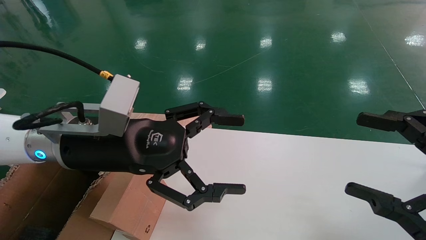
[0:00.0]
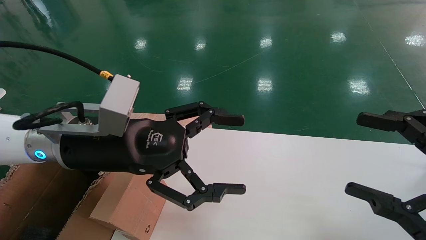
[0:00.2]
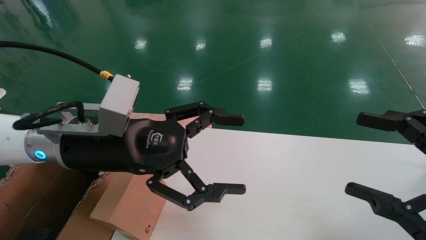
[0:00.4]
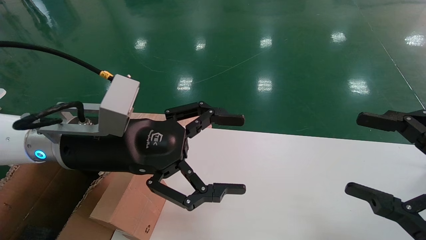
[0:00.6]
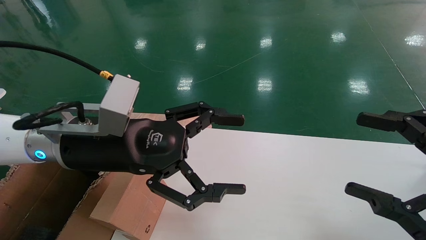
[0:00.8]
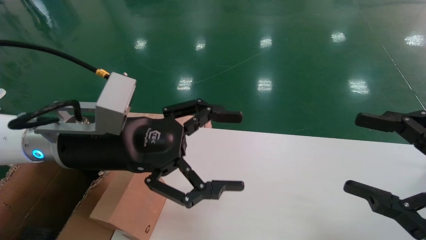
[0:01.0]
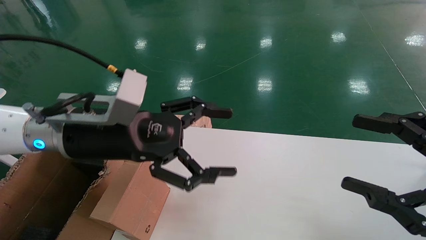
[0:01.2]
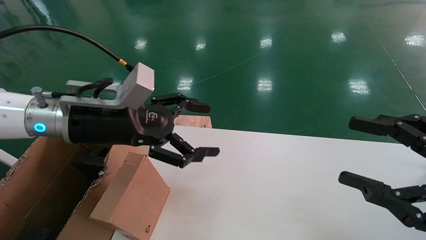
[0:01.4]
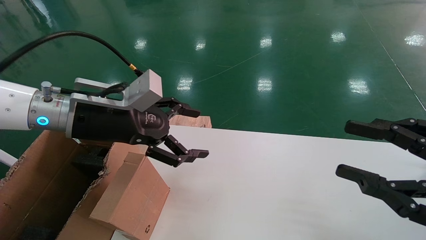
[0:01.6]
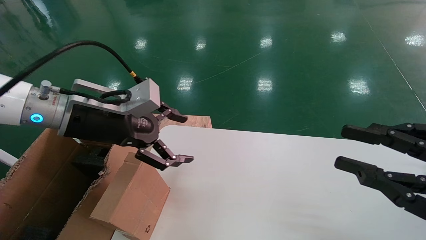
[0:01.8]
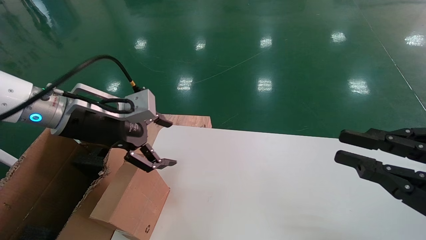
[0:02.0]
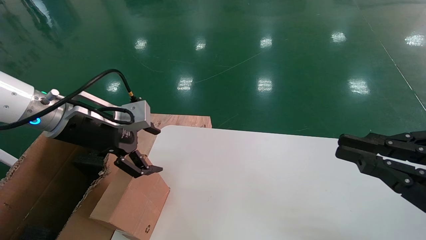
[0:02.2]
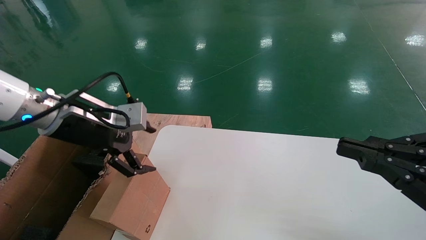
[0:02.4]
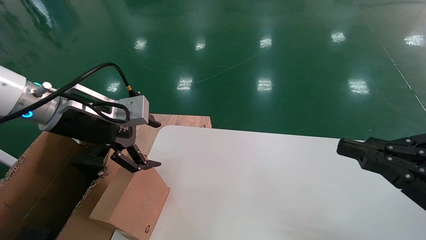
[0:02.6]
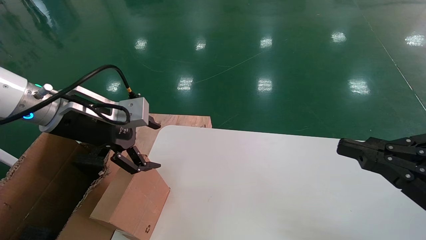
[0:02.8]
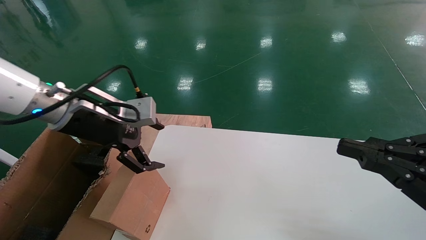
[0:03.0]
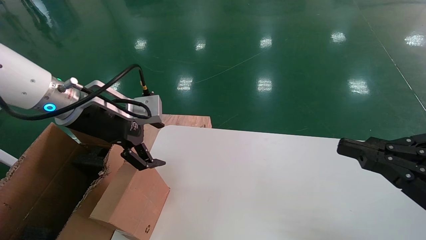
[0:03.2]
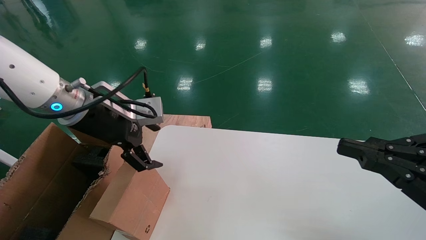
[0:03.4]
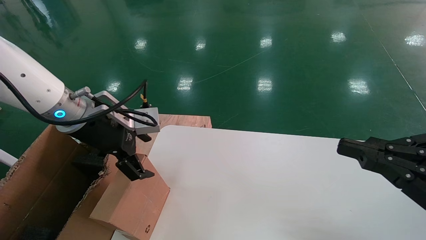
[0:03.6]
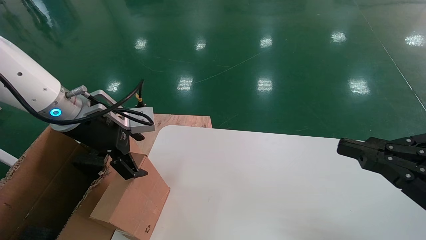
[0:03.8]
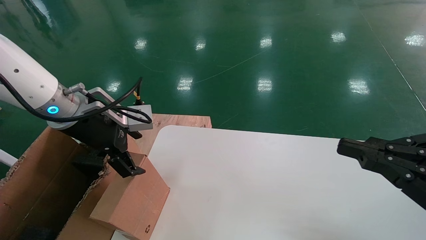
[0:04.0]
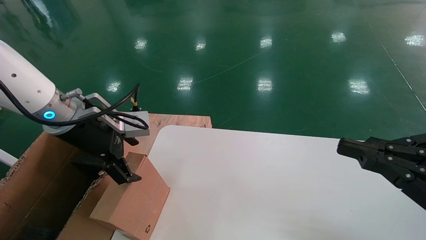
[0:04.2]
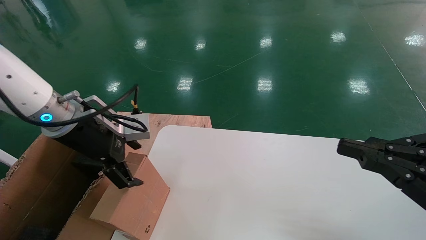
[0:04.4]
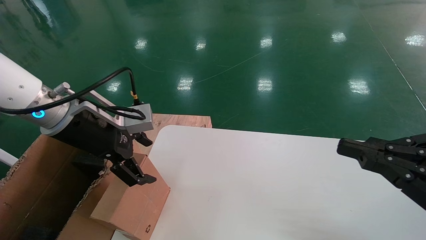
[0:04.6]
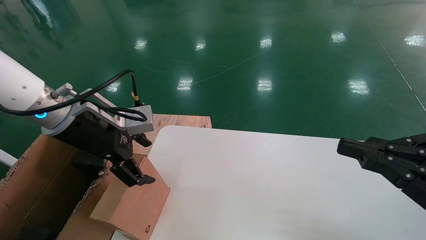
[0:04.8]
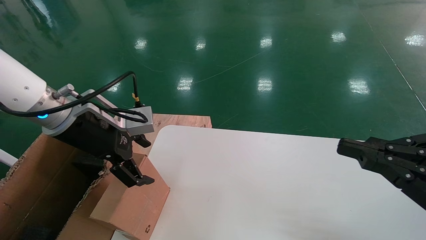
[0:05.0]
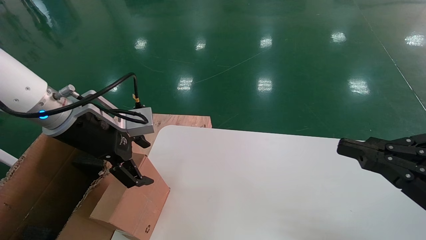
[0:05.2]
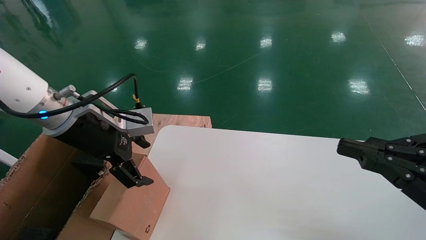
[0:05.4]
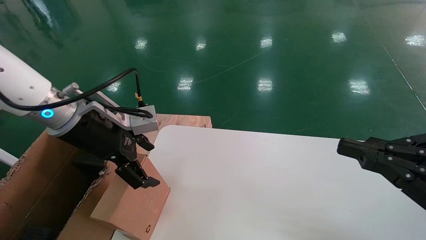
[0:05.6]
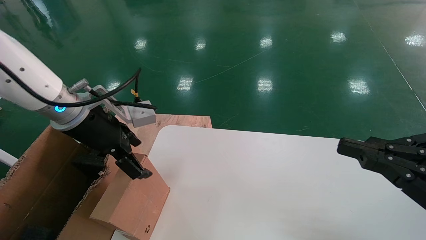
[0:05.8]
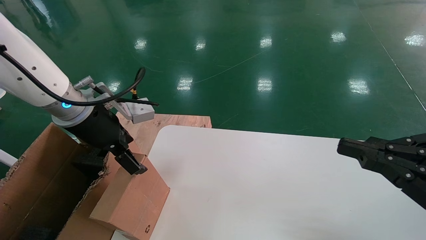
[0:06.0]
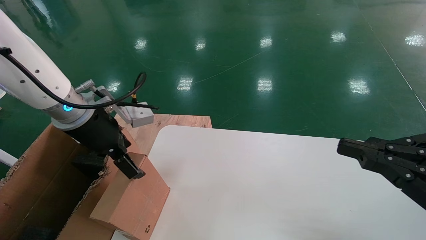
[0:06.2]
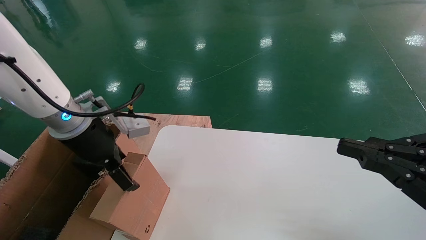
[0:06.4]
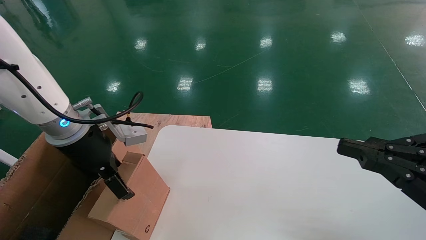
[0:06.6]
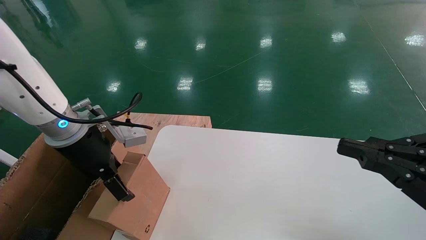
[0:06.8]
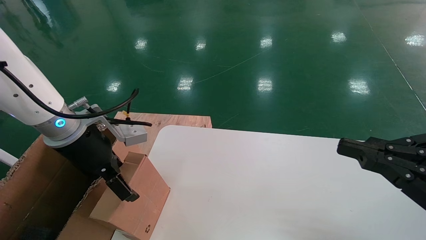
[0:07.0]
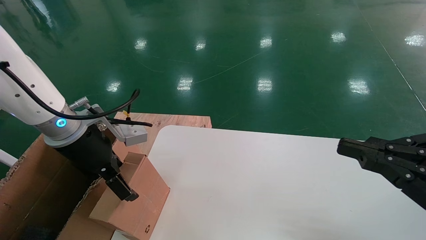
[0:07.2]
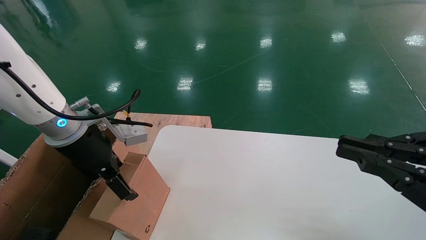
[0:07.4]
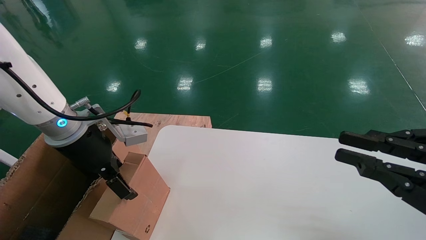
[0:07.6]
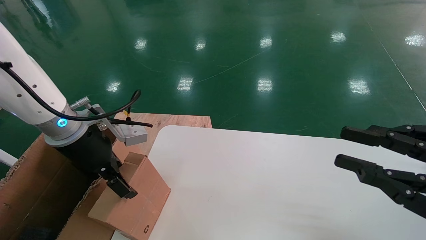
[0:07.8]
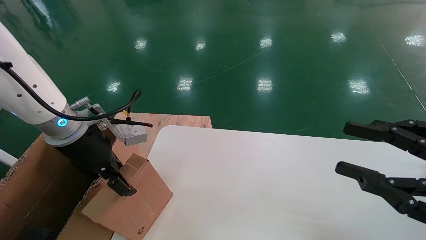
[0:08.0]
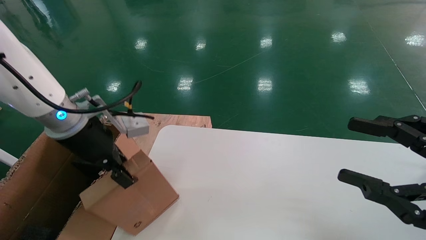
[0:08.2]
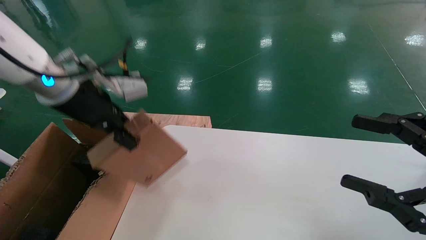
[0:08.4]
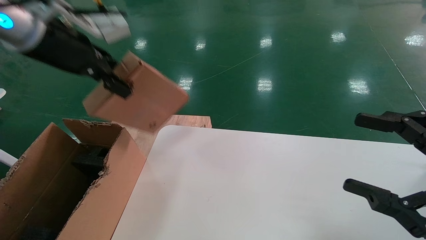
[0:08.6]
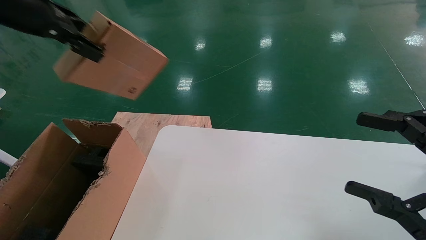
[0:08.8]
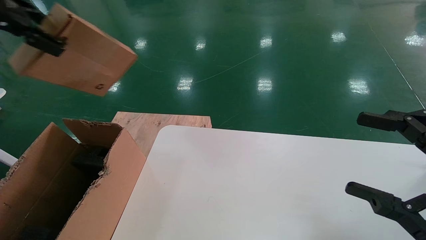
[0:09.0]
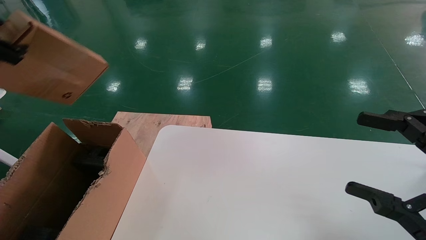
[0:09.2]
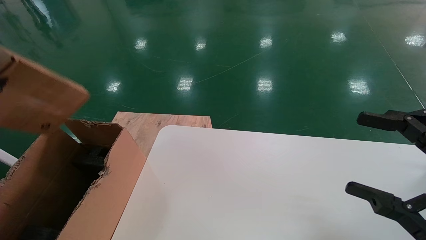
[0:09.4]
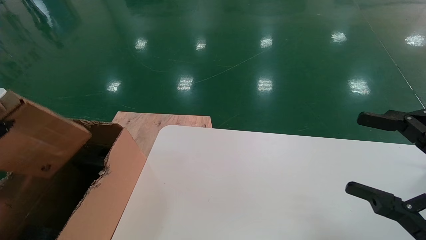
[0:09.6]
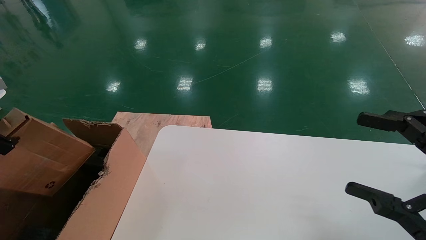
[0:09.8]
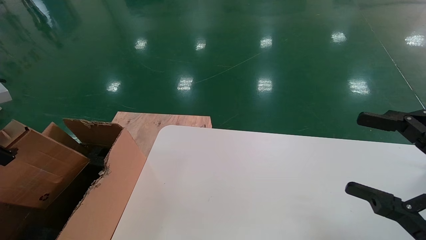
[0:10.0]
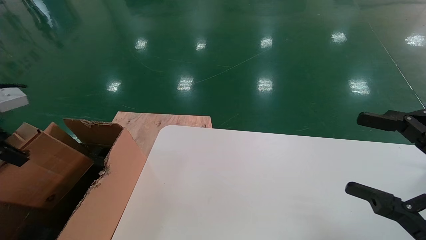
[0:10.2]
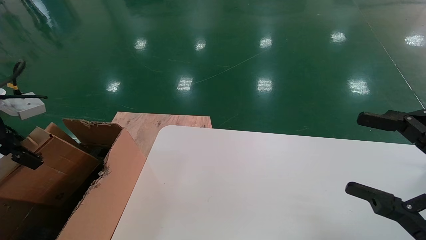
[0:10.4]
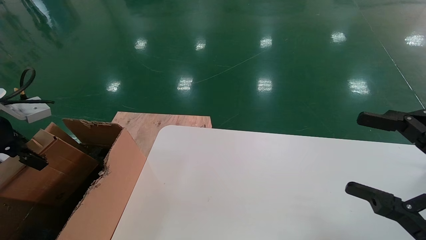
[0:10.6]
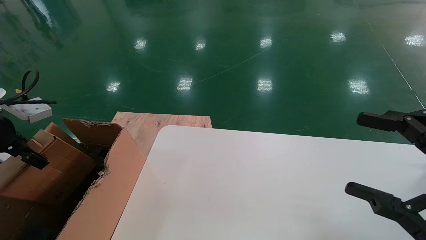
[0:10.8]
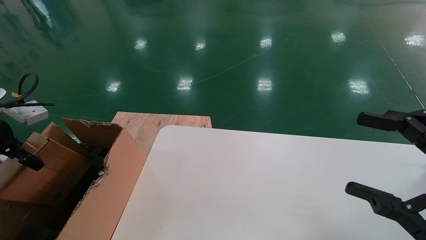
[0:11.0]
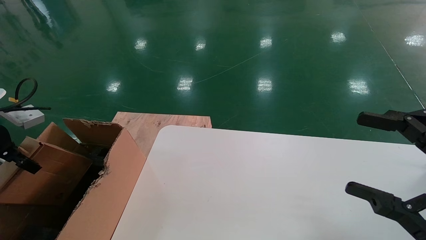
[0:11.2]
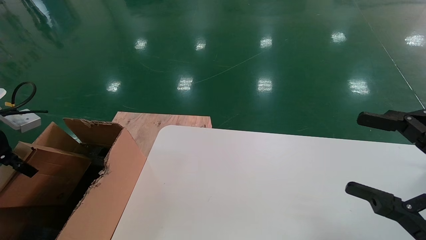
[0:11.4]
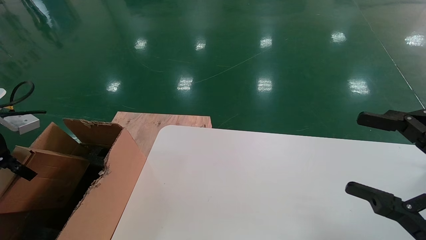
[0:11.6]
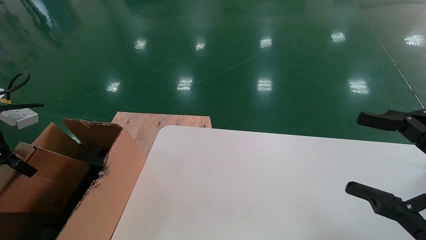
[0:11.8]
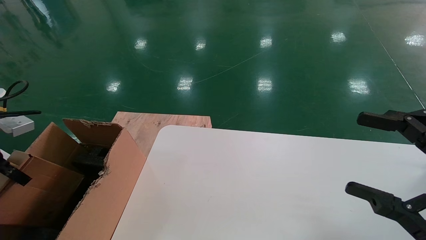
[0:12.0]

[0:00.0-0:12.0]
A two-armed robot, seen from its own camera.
Task of the whole recording: place the small box on the table into the large box on the left.
Step, 0:01.4 to 0:08.4: Pick up the mouse and the power cord paper box.
0:00.0 to 0:01.6: The left gripper moves approximately 5 cm.
0:01.6 to 0:03.0: The right gripper closes up.
0:03.0 to 0:04.4: The grippers move only a little.
0:04.4 to 0:06.0: The grippers stay close to where they were, moving slightly.
0:06.0 to 0:07.6: The grippers move only a little.
0:07.6 to 0:09.0: The left gripper is displaced upward and to the left by some 25 cm, and closes; the right gripper opens.
0:09.0 to 0:10.4: The left gripper goes approximately 20 cm downward.
0:10.4 to 0:12.0: The left gripper heads to the left and downward, covering roughly 5 cm.

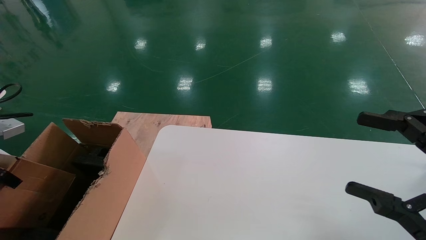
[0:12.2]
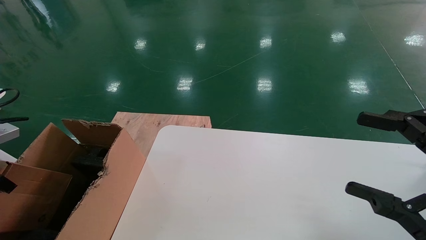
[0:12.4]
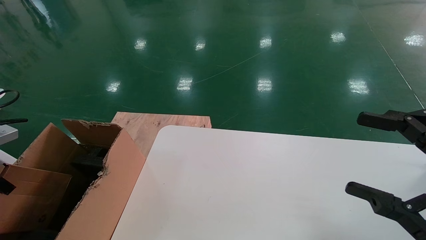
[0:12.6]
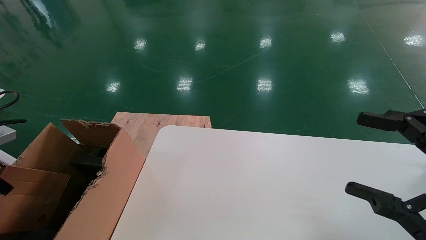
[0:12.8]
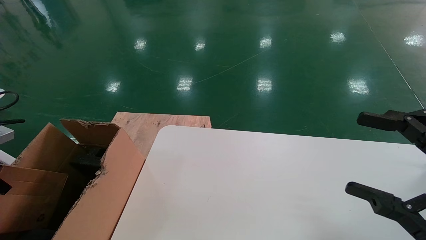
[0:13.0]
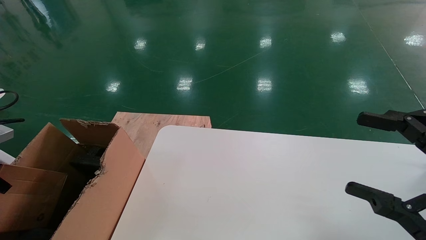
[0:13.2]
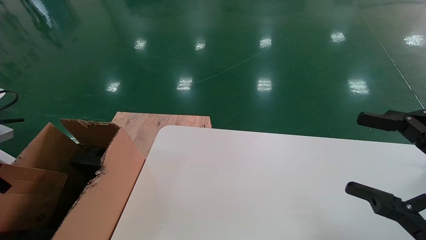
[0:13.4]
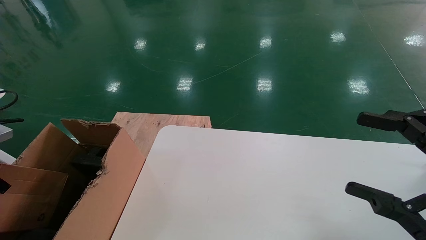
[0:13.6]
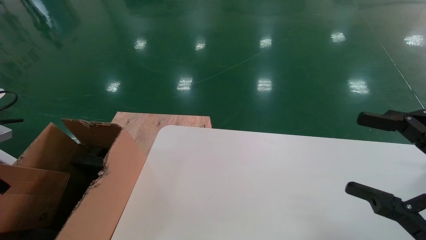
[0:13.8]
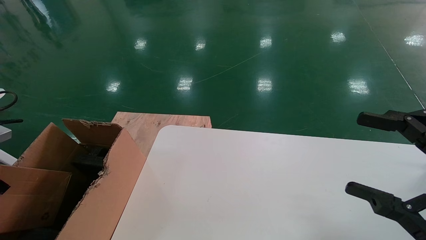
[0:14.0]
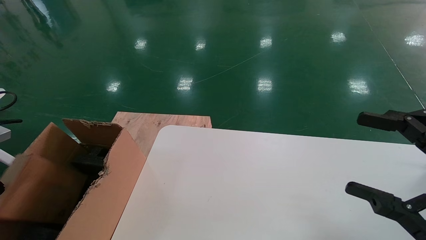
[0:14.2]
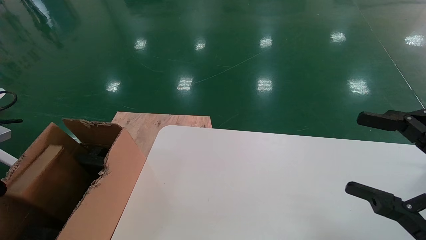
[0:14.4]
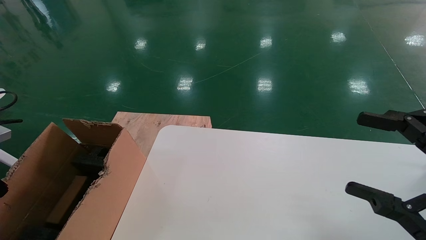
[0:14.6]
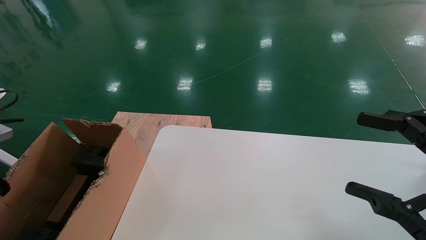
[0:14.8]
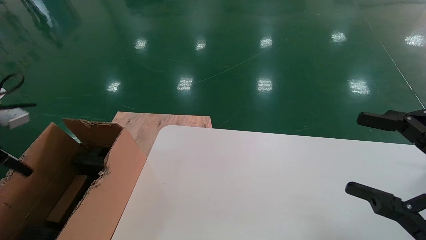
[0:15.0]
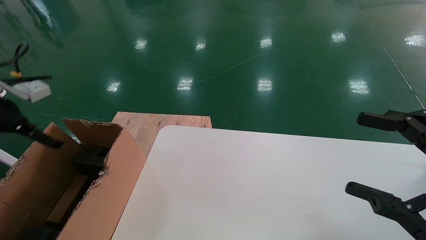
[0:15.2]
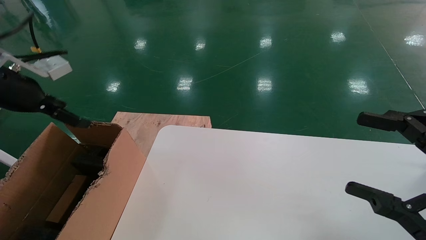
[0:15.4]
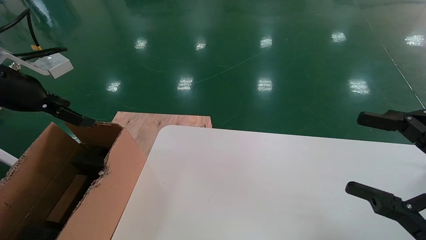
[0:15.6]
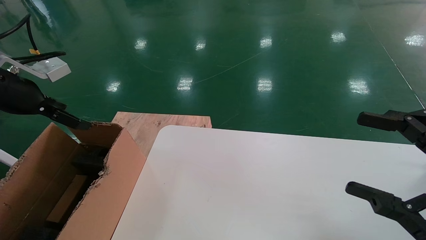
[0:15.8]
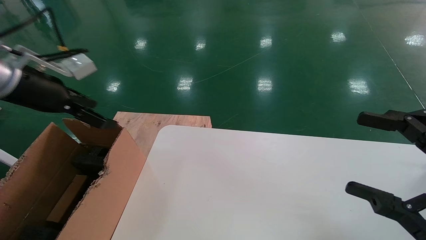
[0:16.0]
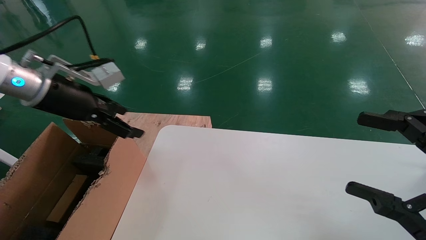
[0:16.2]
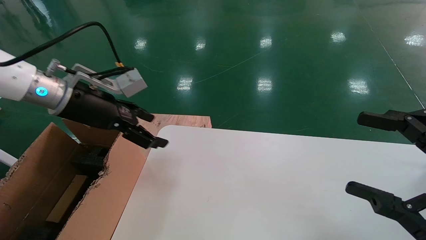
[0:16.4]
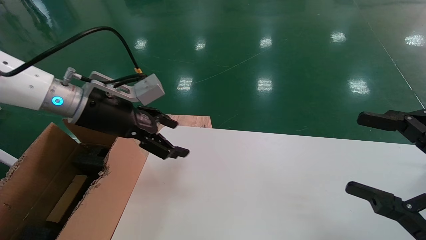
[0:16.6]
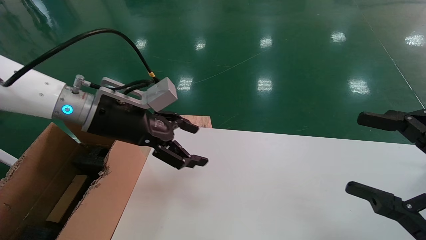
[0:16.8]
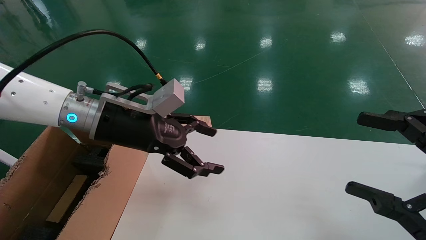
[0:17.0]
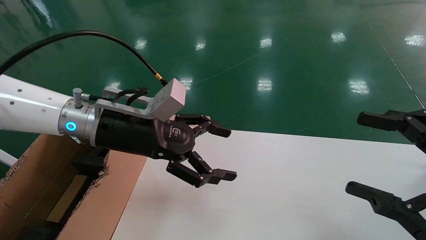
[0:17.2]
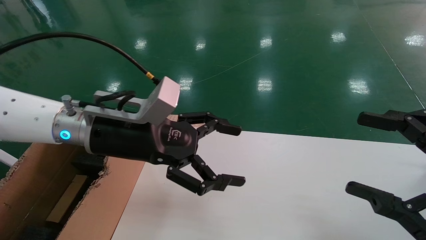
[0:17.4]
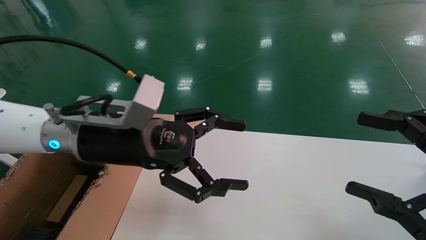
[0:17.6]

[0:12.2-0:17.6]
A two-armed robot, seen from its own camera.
Task of the whole recording: place the small box on the table into the large box on the left.
Step, 0:12.2 to 0:15.2: Place the mouse and the power cord paper box into the container.
0:12.2 to 0:13.6: The grippers stay close to where they were, moving slightly.
0:13.6 to 0:15.0: The left gripper changes place by approximately 5 cm, and opens up.
0:15.0 to 0:16.2: The left gripper shifts approximately 20 cm to the right.
0:16.2 to 0:17.6: The left gripper heads to the right, covering approximately 15 cm.
